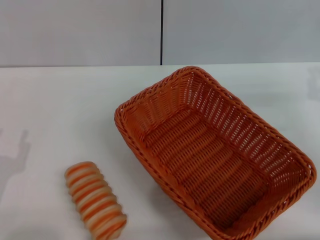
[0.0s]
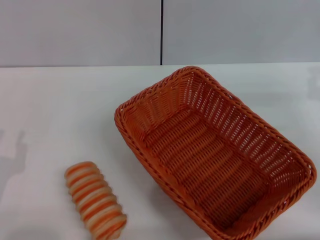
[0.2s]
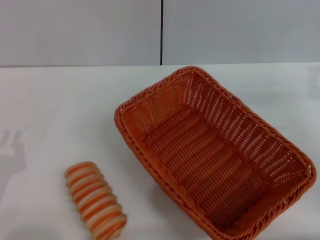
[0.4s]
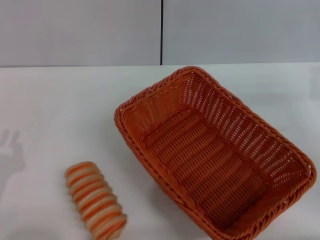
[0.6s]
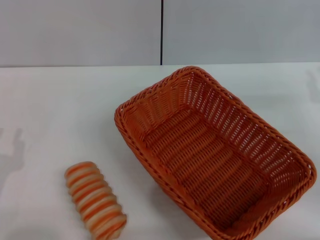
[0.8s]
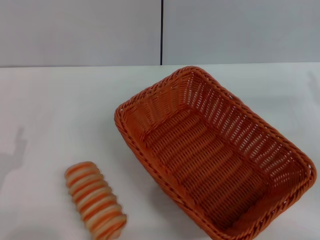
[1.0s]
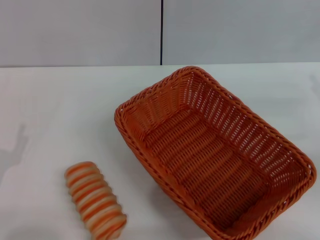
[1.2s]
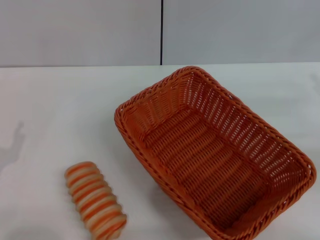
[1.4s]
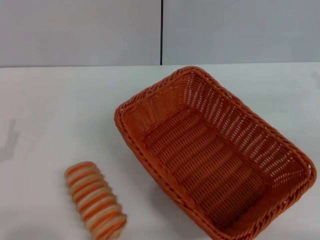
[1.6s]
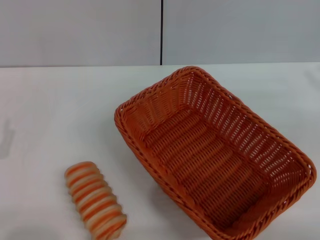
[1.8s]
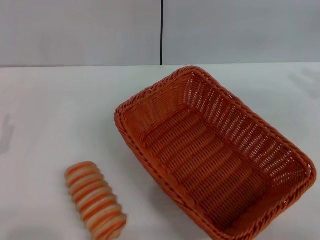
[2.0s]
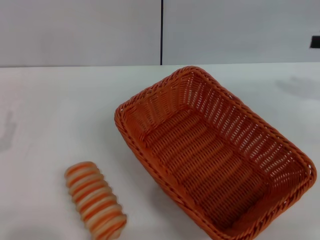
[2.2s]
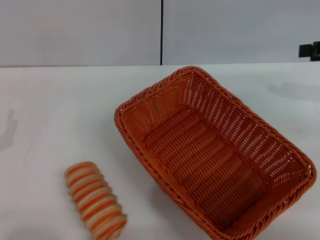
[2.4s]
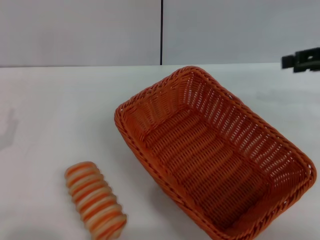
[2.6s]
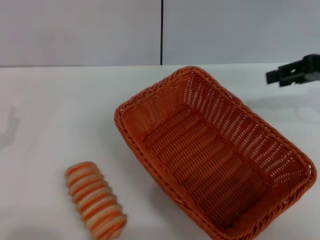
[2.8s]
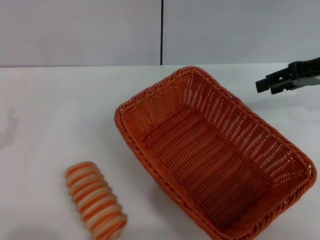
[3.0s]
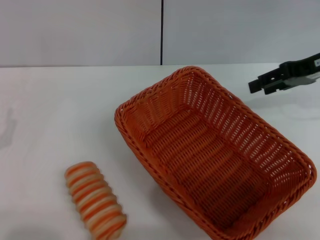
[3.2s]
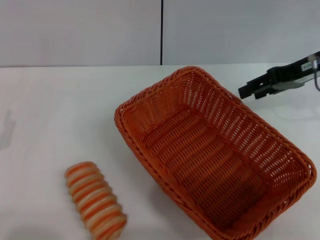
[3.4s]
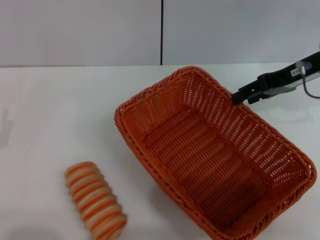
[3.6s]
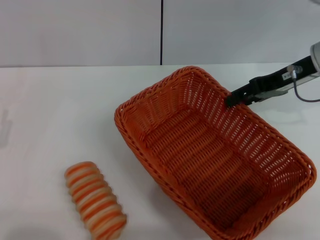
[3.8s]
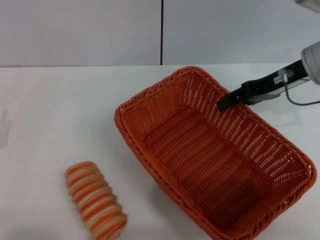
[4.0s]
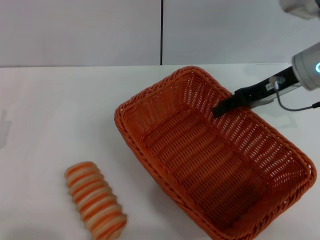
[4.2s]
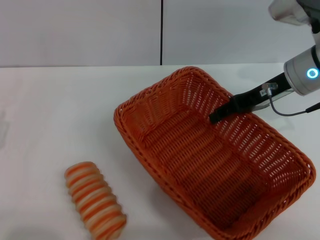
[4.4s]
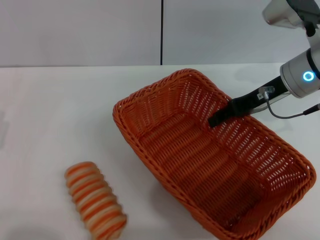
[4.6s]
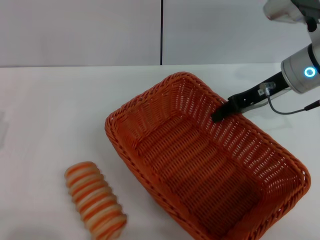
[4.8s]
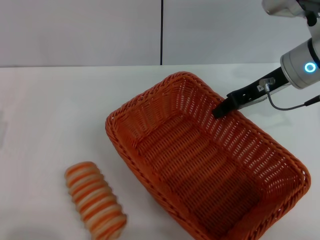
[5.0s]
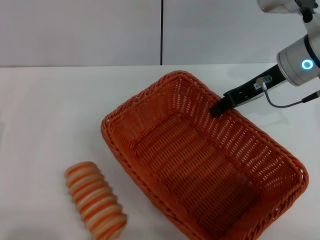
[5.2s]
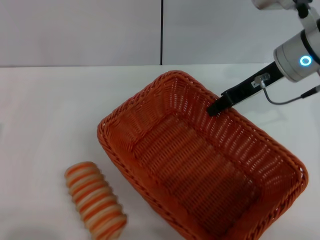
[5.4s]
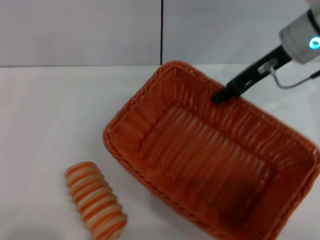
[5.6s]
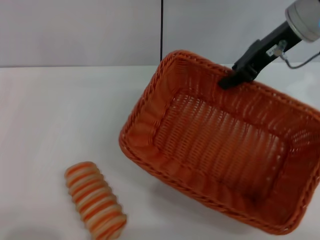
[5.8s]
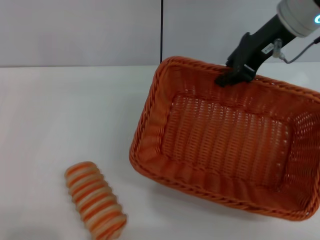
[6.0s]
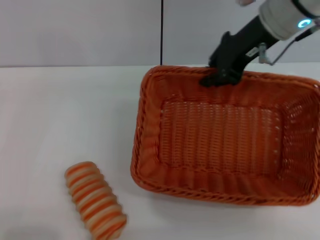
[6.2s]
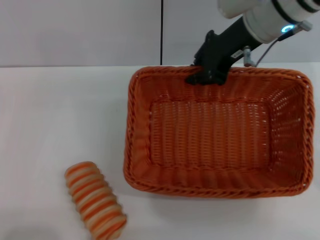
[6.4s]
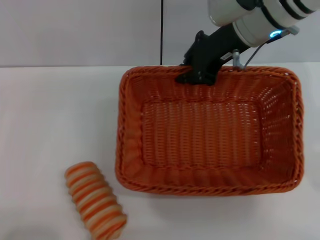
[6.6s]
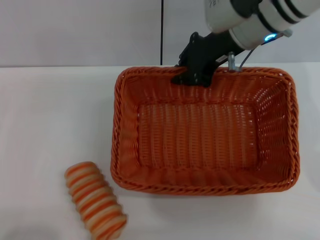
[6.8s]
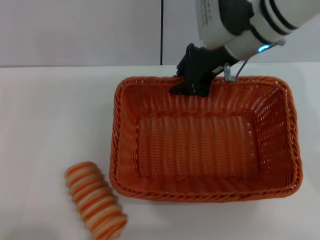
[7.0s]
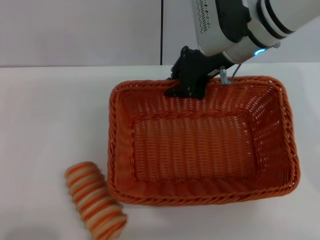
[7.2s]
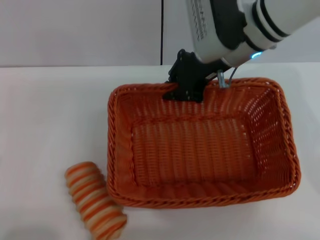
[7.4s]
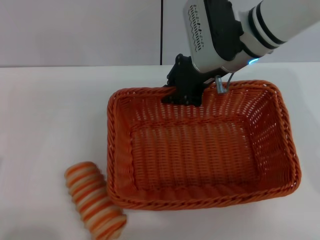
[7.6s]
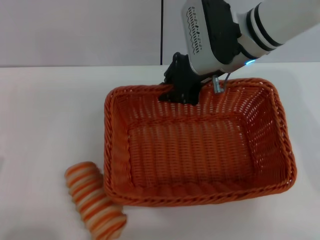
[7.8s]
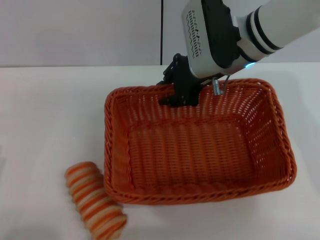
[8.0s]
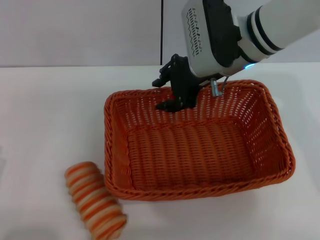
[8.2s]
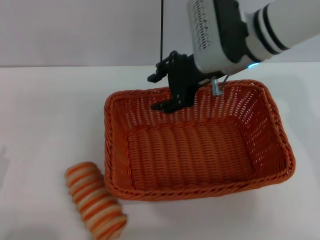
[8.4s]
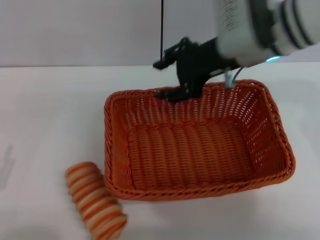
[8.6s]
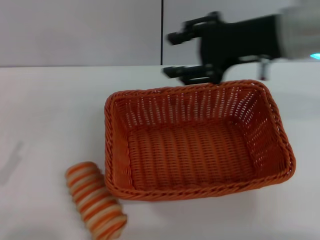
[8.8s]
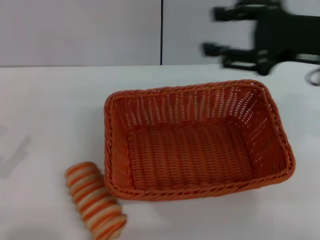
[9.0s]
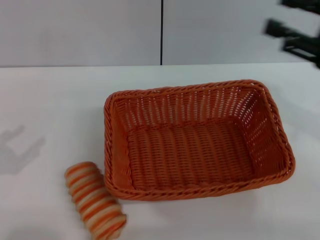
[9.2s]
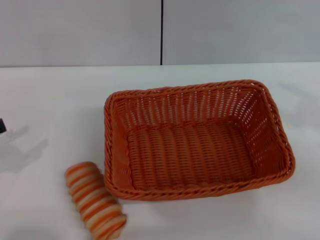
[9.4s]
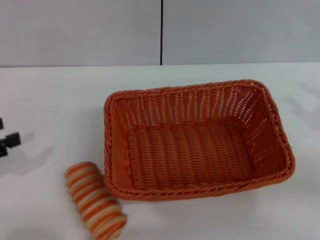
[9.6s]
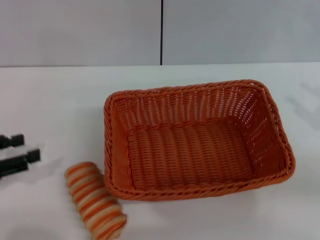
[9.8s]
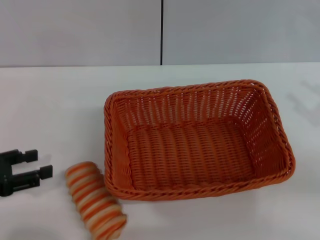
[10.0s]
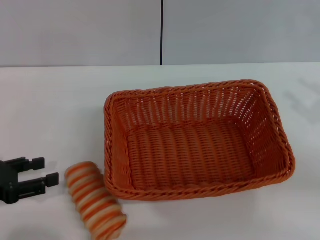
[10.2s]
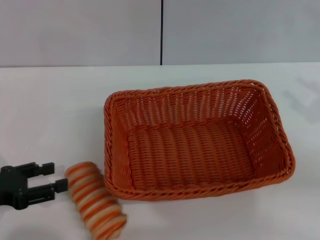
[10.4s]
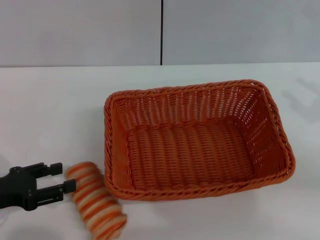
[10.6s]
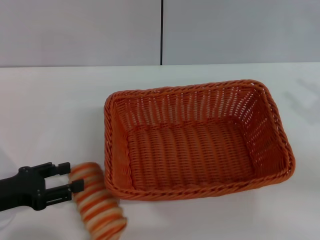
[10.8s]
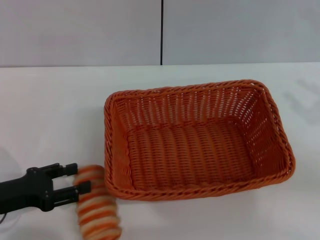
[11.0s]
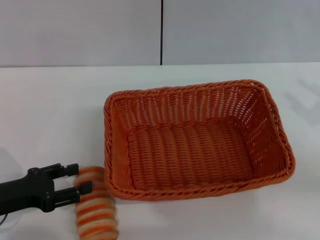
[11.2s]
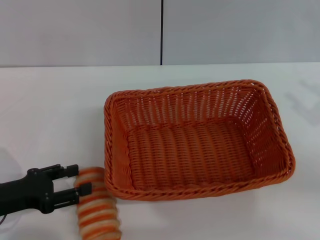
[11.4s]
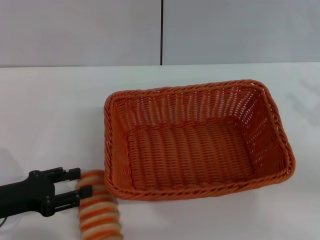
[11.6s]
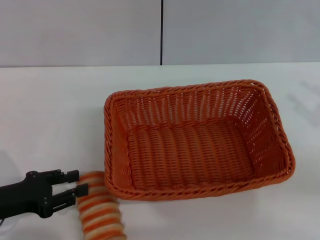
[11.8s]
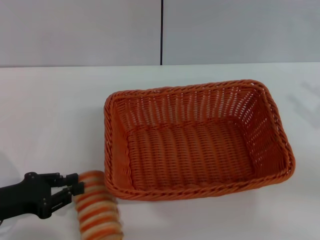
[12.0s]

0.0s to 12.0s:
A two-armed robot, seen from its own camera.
Step, 0.0s to 5.6s: Pick up the light basket with the right gripper.
Step, 5.8s to 8.4s: Place the light basket in the center of view with the right gripper.
1.6s to 3.0s: The right gripper goes roughly 15 cm forward, to the left and upward.
3.0s to 4.4s: The right gripper heads to the left, covering approximately 10 cm.
4.4s to 6.0s: The right gripper shifts roughly 10 cm upward, and closes up.
6.0s to 7.6s: The right gripper moves to the left and downward, roughly 10 cm.
7.6s to 9.0s: The right gripper goes roughly 15 cm to the right, backward and upward, and opens, while the left gripper moves to the left and upward, approximately 10 cm.
9.0s to 10.4s: The right gripper is displaced to the right, downward and backward by roughly 15 cm, while the left gripper moves forward, approximately 5 cm.
10.4s to 12.0s: The grippers make only small movements.

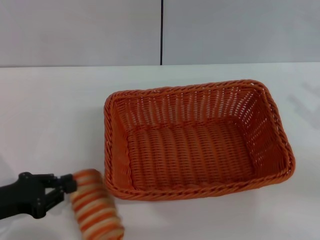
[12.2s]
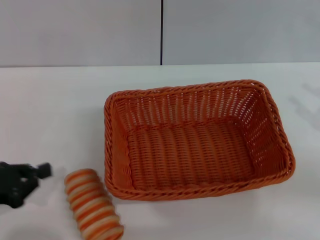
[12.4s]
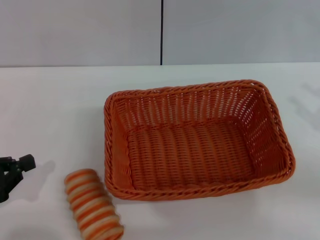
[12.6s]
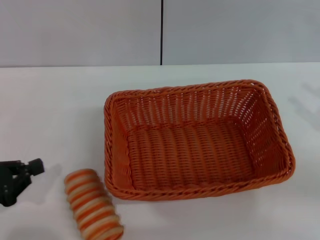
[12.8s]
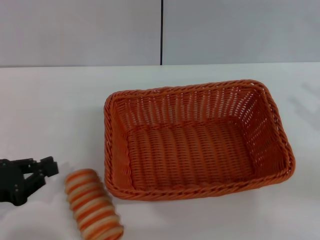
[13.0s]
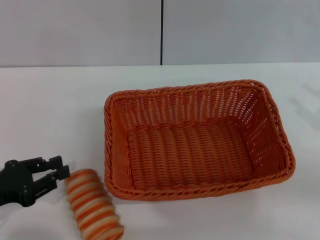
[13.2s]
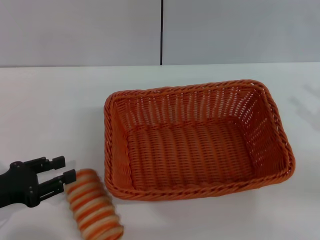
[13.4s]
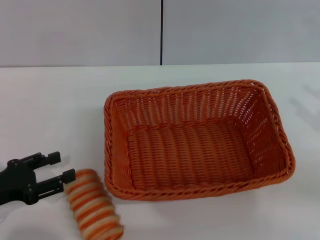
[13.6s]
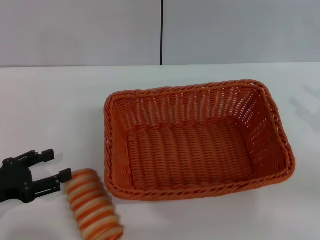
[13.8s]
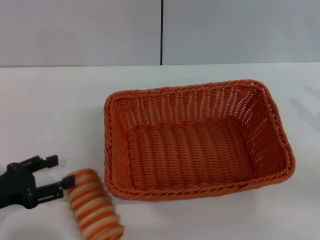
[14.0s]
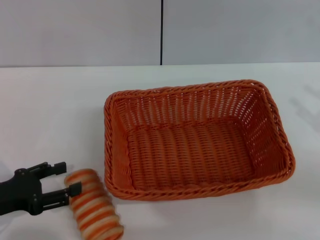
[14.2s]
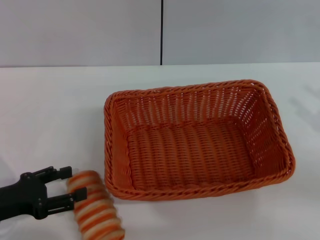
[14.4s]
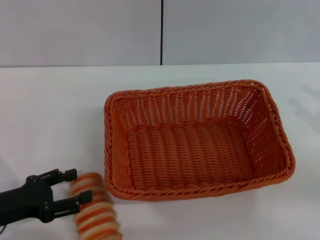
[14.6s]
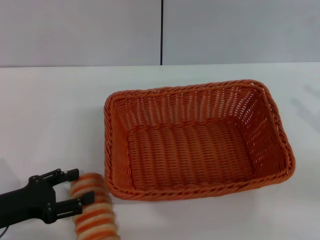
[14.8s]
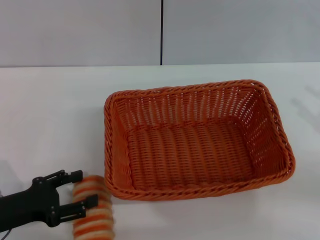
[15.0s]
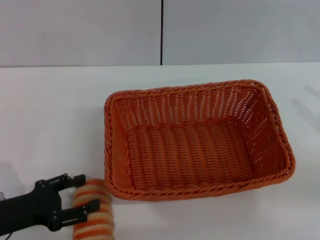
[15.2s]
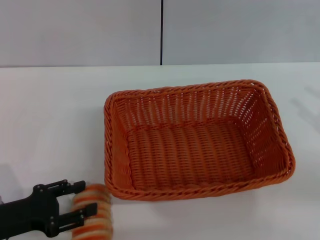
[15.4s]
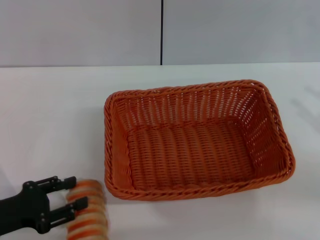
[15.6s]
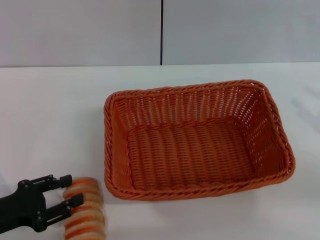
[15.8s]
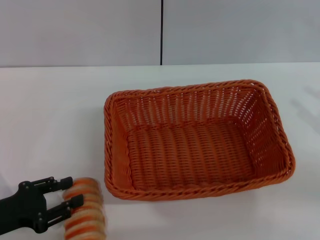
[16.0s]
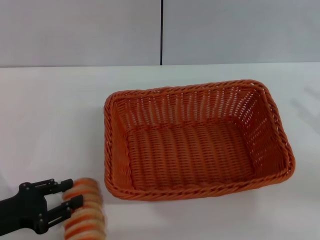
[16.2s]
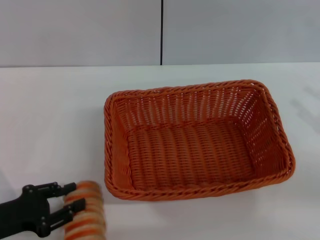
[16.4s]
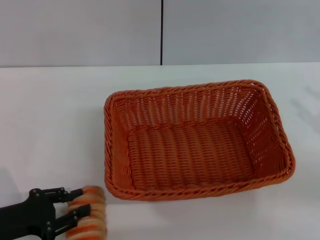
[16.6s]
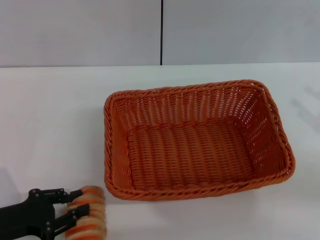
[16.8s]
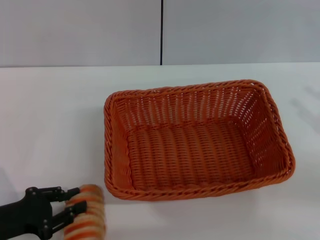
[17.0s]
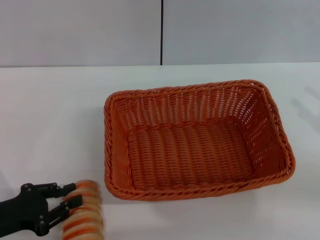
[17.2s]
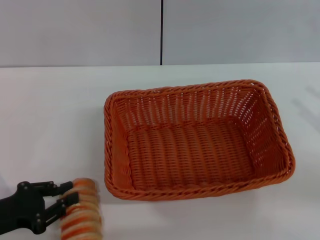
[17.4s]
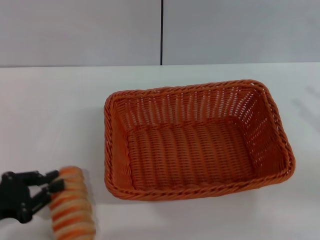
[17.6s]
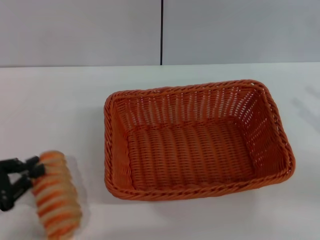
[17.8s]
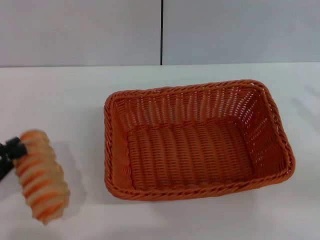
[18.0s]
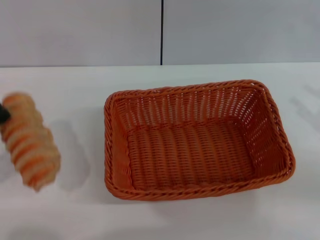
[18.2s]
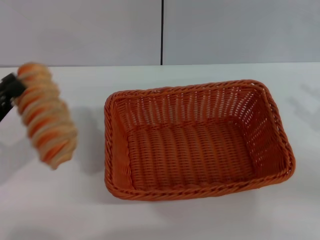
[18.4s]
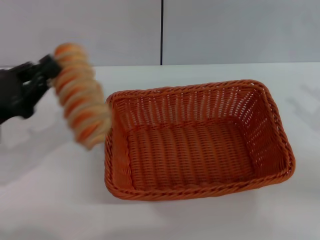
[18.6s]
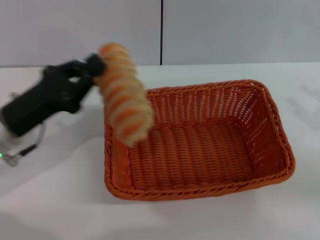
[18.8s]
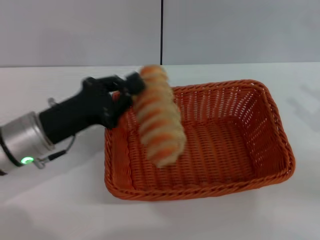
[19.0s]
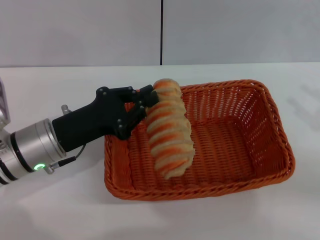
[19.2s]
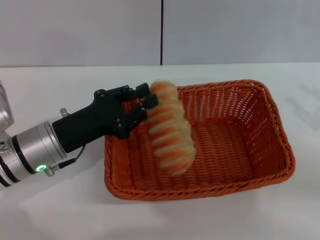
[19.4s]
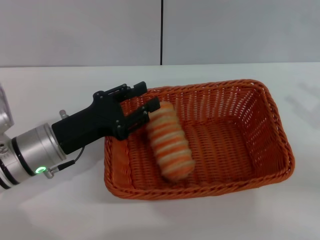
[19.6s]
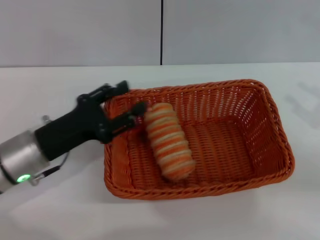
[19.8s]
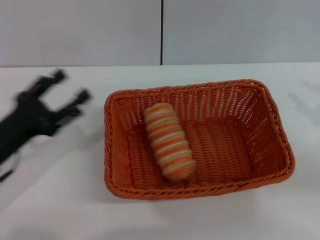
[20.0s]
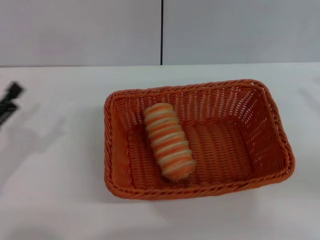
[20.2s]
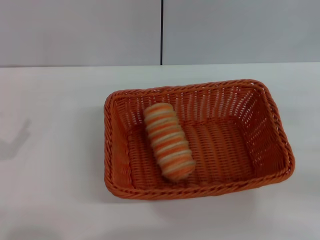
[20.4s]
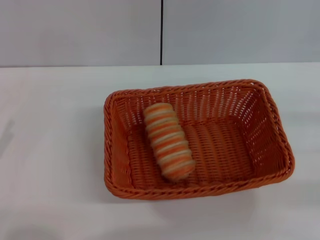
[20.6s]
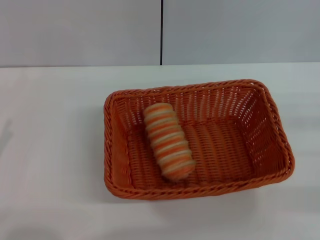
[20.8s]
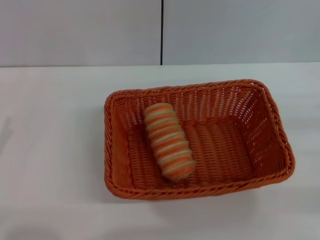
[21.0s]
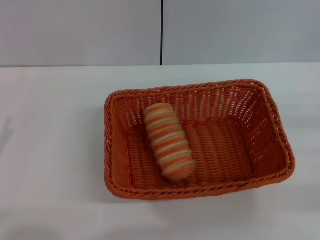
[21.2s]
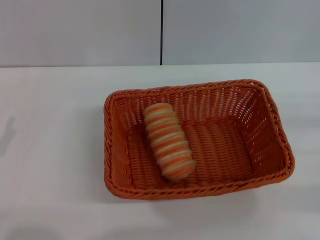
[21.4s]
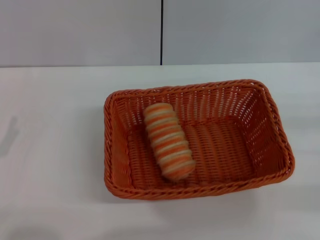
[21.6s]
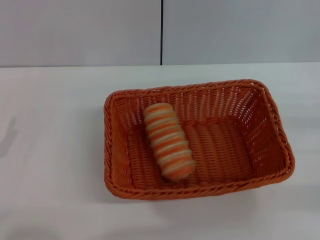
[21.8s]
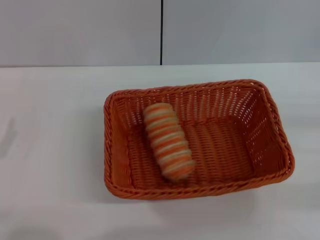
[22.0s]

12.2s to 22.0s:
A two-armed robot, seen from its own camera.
Step, 12.2s to 18.4s: Pick up the long bread with the left gripper.
Step, 18.6s to 20.0s: Place the long bread into the light basket with the left gripper.
12.2s to 13.6s: The left gripper opens up.
13.6s to 15.0s: The grippers make only small movements.
15.0s to 16.4s: The left gripper closes its fingers.
16.4s to 17.8s: The grippers make only small movements.
17.8s to 19.2s: The left gripper heads to the right and forward, covering approximately 20 cm.
19.2s to 20.6s: The left gripper shifts some 20 cm to the left and backward, and opens up; the right gripper shifts by about 5 cm.
